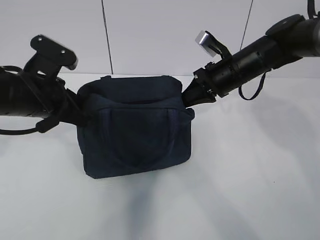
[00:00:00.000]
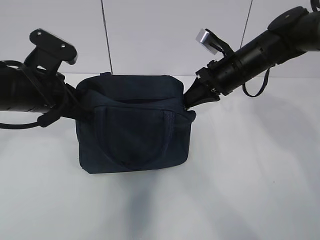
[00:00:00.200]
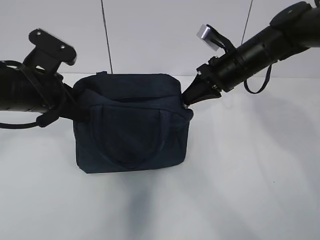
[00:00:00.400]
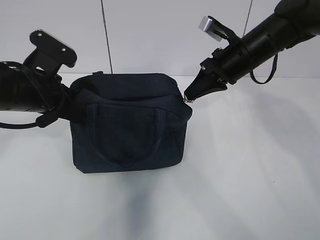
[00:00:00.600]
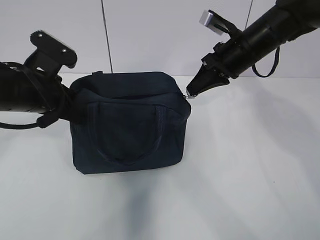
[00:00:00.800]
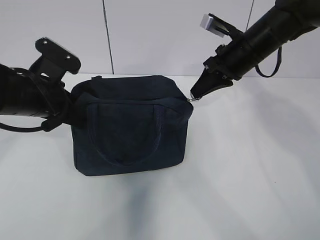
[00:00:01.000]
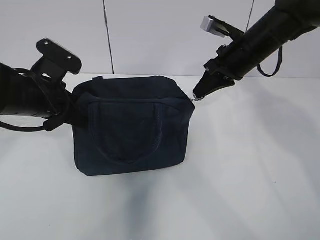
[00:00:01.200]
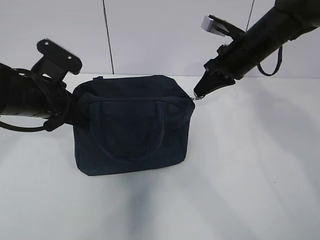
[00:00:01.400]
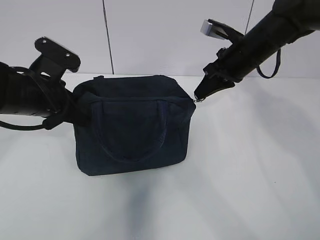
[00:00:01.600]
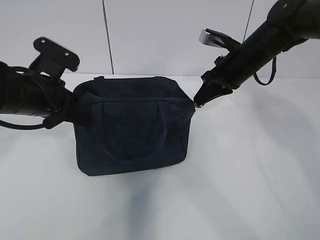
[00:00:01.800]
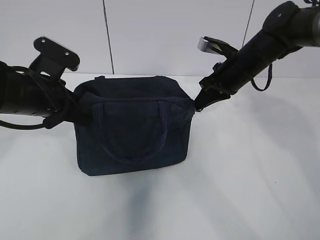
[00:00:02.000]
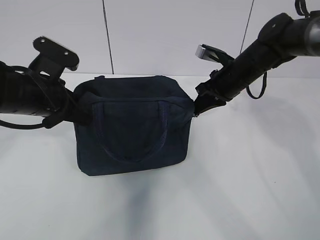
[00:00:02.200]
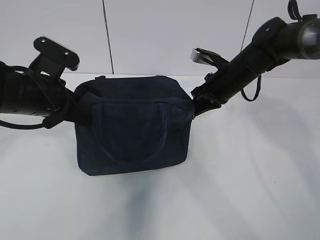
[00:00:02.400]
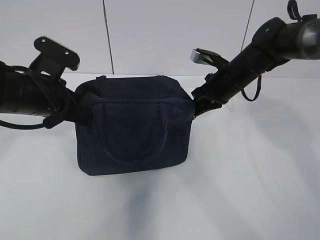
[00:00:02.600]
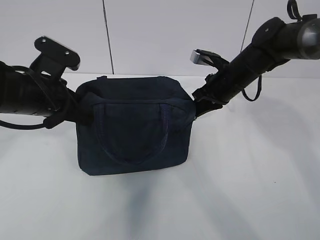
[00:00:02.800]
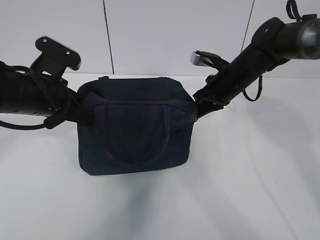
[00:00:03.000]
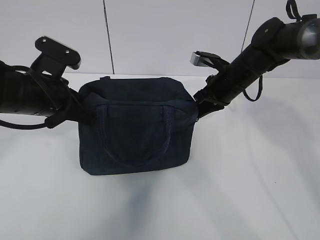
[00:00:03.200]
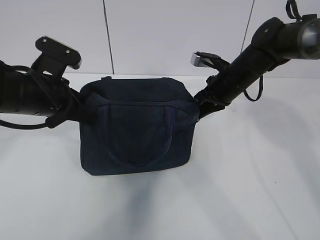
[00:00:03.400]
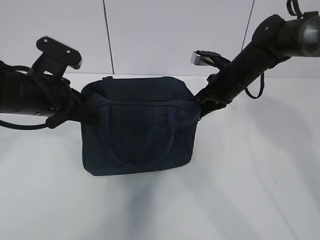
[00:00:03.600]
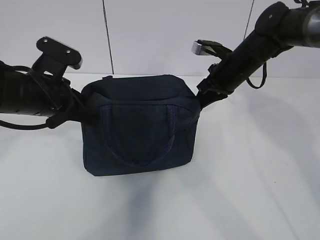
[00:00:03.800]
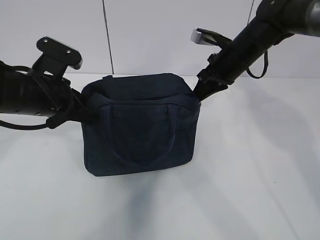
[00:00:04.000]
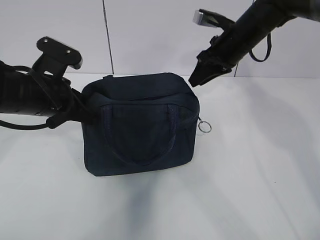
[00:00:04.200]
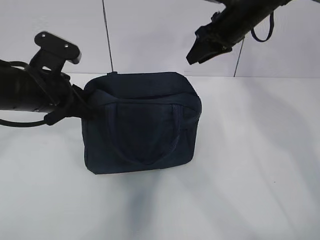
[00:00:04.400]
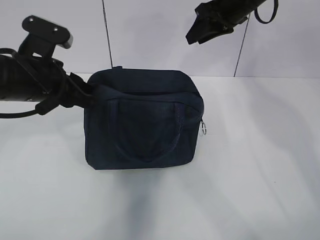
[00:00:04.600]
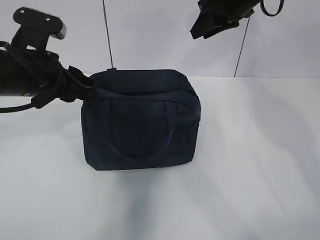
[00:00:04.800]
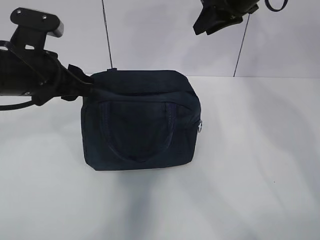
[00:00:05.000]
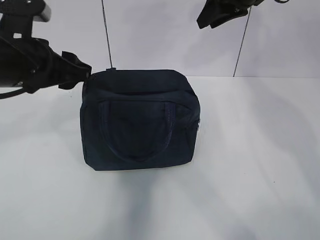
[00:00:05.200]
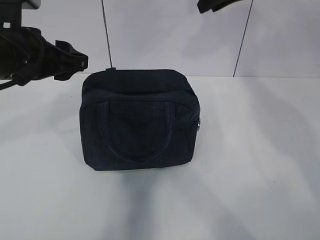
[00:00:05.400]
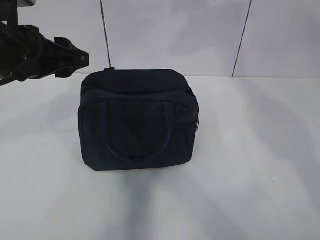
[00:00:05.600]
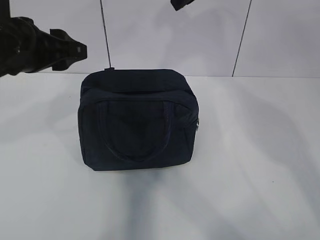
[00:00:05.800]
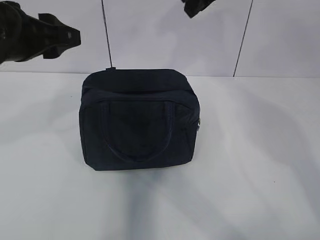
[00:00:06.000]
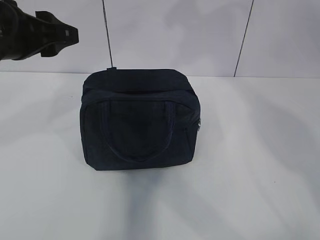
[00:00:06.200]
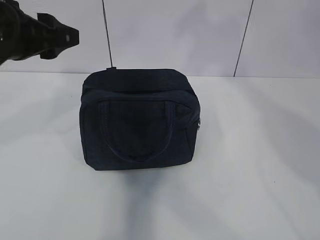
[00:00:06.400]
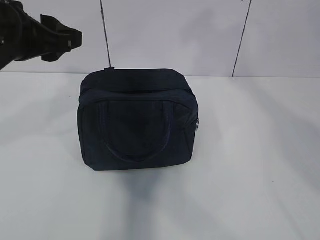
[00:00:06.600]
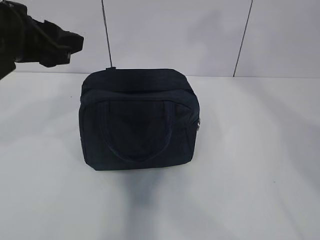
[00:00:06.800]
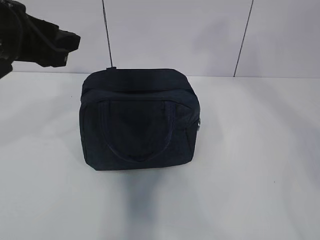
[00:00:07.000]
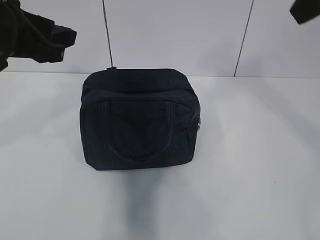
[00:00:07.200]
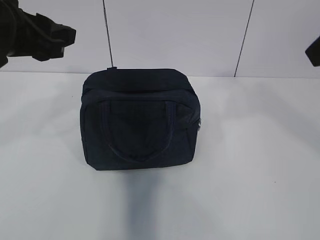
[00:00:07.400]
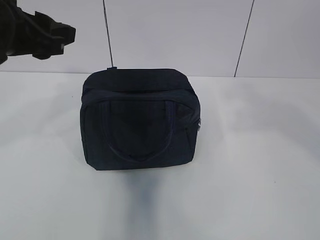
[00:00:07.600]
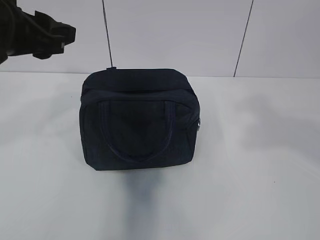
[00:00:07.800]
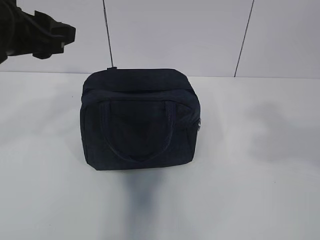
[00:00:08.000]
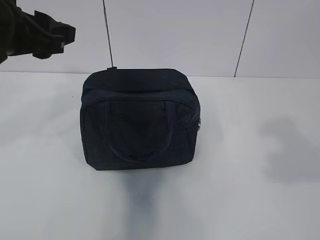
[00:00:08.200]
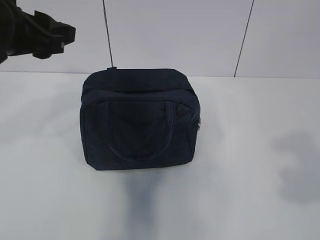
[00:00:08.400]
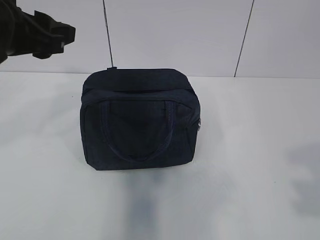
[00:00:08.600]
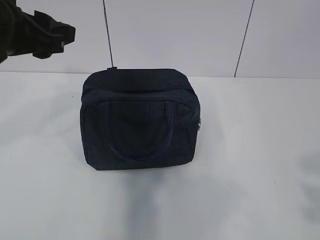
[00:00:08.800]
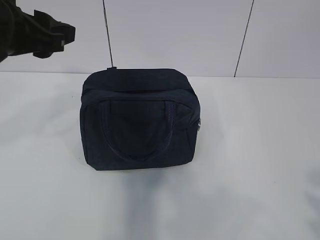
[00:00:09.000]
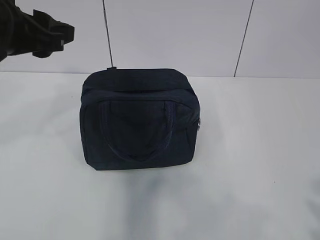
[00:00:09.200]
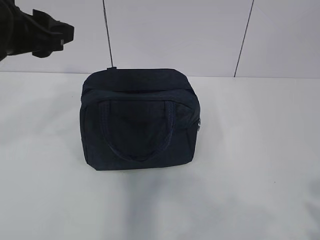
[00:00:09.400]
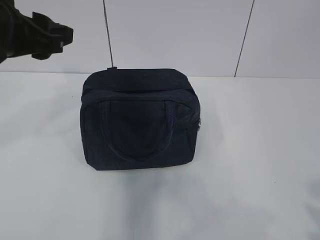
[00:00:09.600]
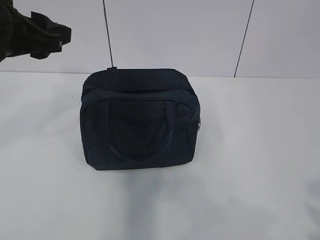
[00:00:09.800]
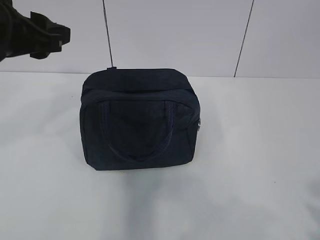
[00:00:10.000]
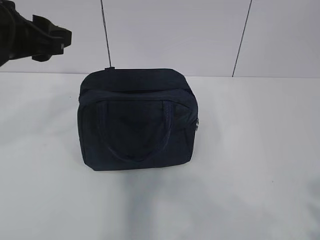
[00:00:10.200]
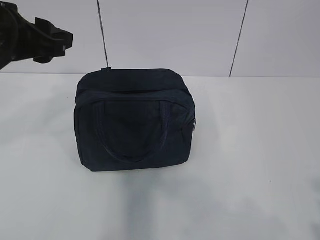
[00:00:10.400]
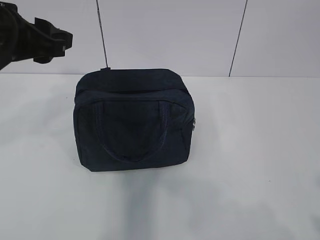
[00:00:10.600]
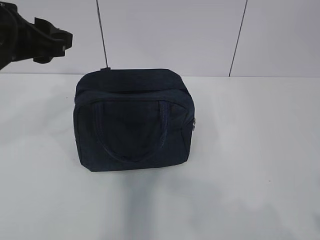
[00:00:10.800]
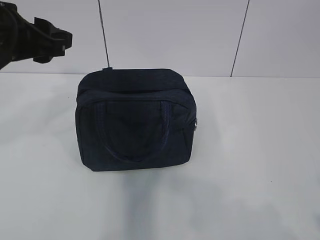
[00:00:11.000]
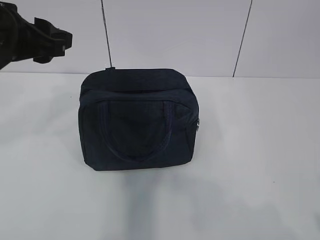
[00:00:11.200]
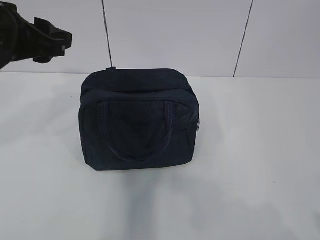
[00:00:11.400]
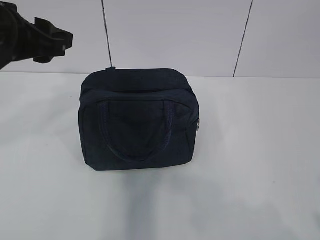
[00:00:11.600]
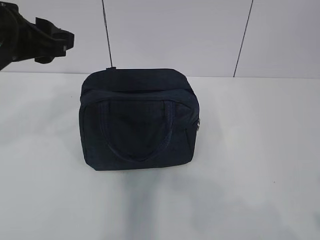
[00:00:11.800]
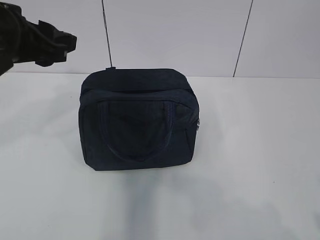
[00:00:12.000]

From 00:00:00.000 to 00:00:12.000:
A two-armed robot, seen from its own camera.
From 00:00:00.000 to 00:00:01.600: There are only small adjustments of the grippers.
From 00:00:01.600 to 00:00:03.000: The right gripper goes some 5 cm downward.
From 00:00:03.000 to 00:00:04.400: The right gripper goes roughly 10 cm upward, and opens up.
From 00:00:04.400 to 00:00:06.000: The left gripper heads upward, covering some 10 cm, and opens up; the right gripper moves upward, backward and to the left, approximately 15 cm.
From 00:00:06.000 to 00:00:07.600: The right gripper travels backward and to the right by about 30 cm.
From 00:00:09.000 to 00:00:10.400: The grippers stay close to where they were, moving slightly.
From 00:00:10.400 to 00:00:12.000: The grippers stay close to where they were, moving slightly.

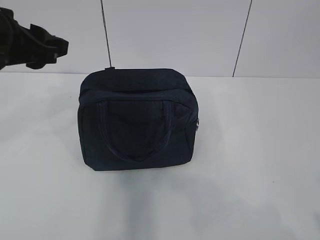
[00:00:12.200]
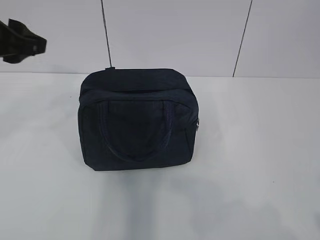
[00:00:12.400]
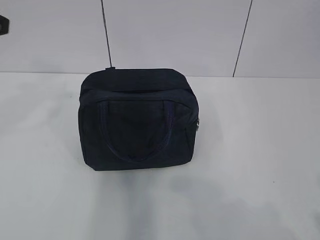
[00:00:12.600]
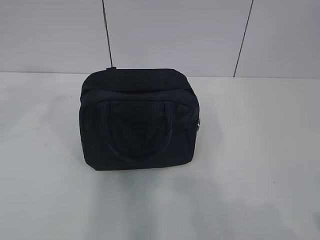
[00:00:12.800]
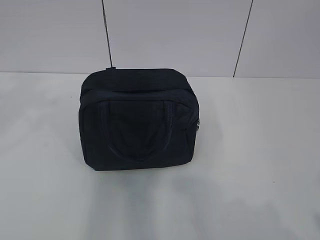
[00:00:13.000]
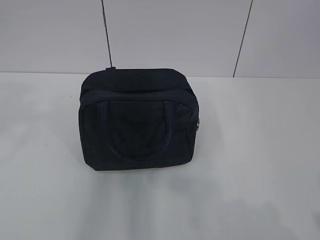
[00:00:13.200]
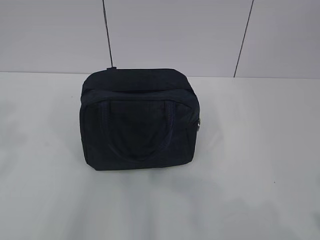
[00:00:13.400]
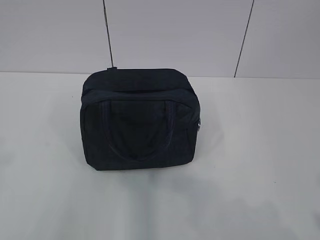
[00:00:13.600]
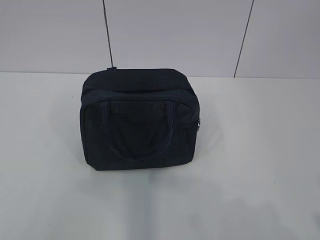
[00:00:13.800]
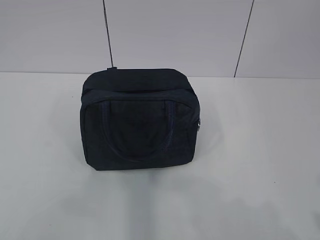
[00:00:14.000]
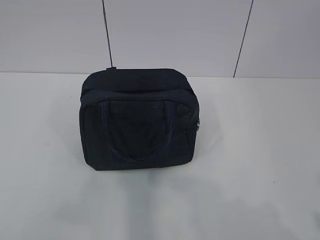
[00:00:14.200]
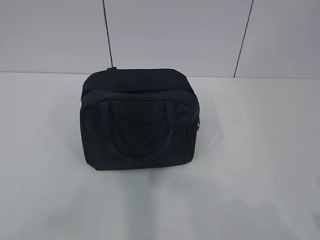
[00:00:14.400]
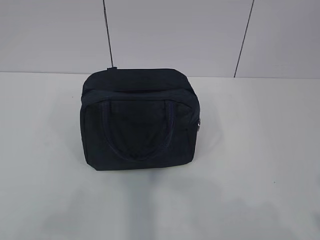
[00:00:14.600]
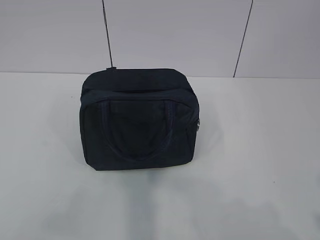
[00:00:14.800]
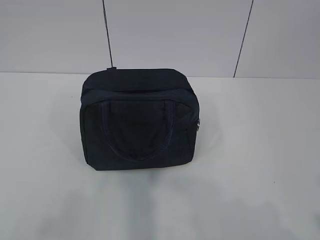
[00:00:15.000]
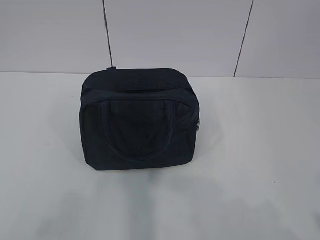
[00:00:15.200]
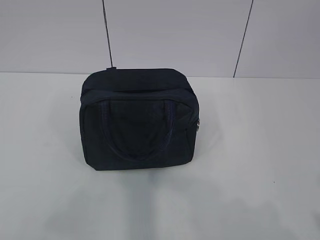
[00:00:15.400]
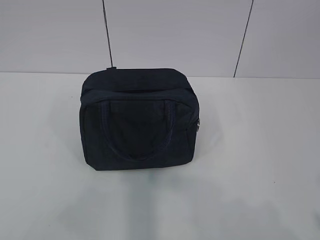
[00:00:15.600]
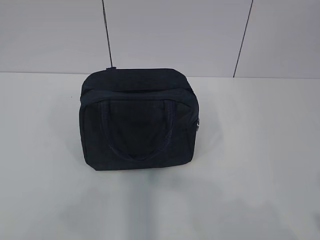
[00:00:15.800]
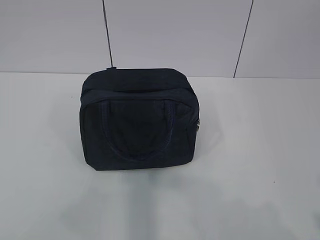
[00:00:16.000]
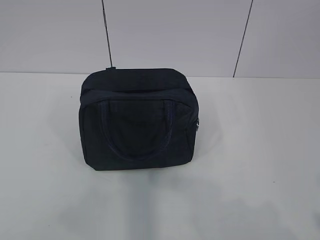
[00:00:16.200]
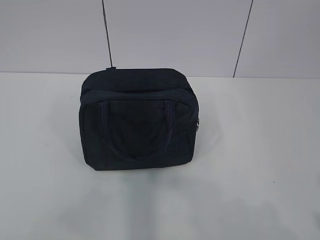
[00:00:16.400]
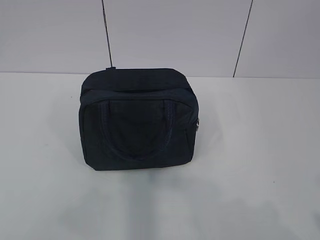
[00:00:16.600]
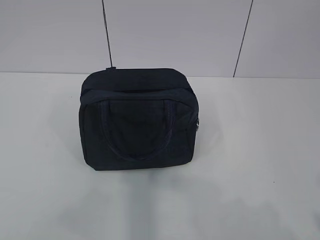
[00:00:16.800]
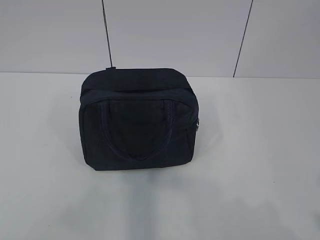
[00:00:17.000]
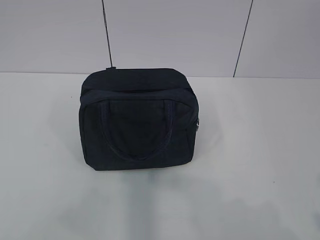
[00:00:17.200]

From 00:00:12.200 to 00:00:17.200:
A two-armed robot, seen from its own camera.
From 00:00:12.200 to 00:00:13.800: The left gripper moves backward and to the left, approximately 25 cm.
From 00:00:15.600 to 00:00:17.200: Neither gripper changes place.
